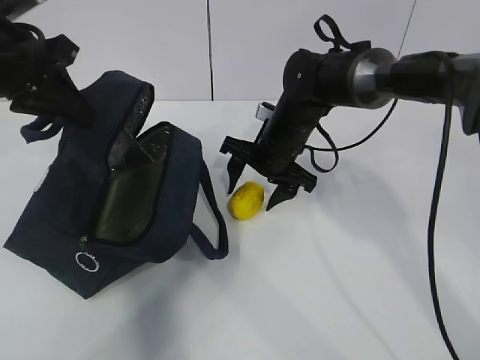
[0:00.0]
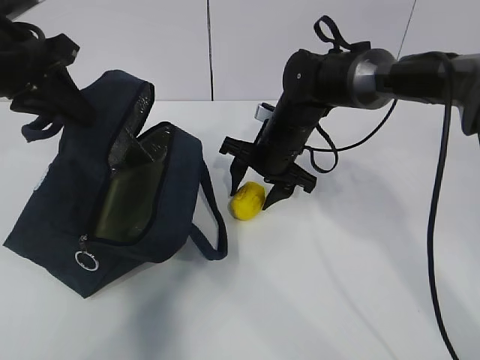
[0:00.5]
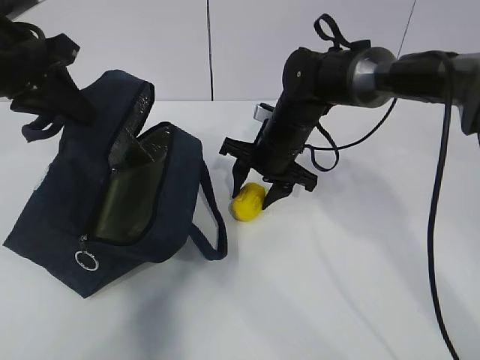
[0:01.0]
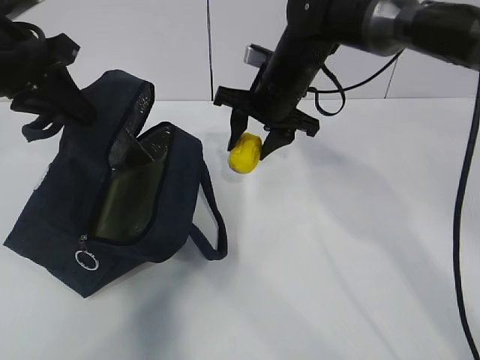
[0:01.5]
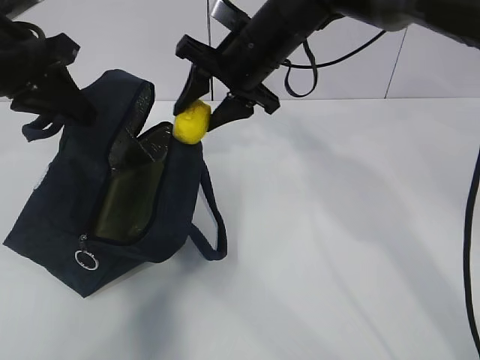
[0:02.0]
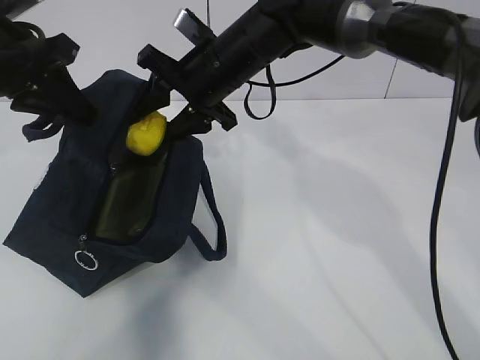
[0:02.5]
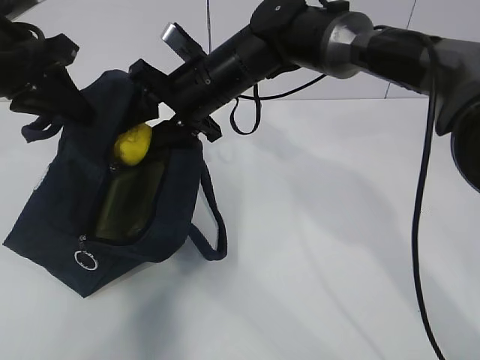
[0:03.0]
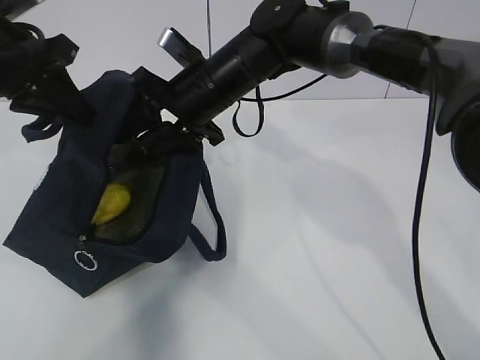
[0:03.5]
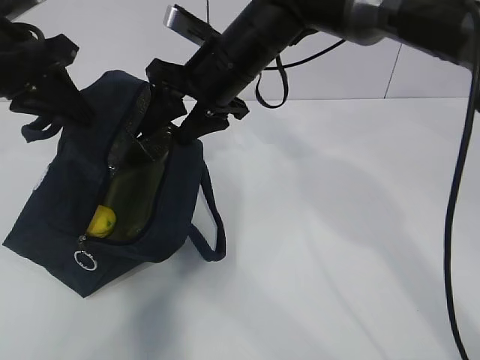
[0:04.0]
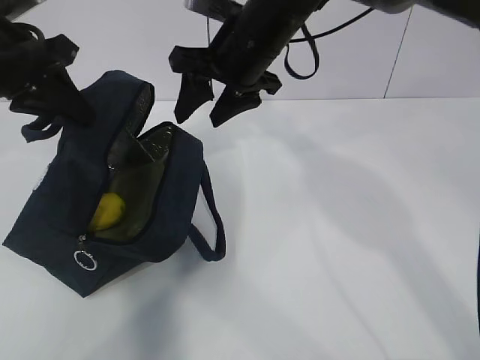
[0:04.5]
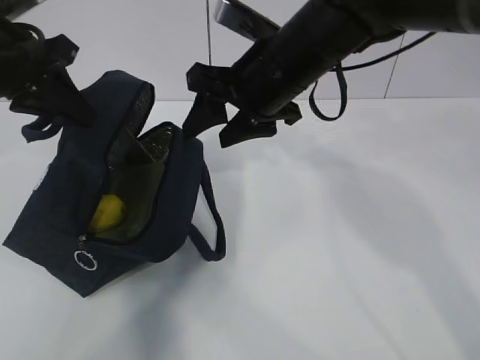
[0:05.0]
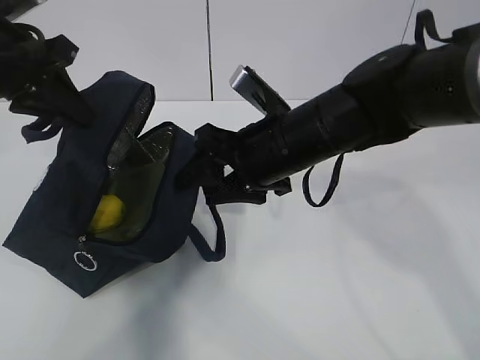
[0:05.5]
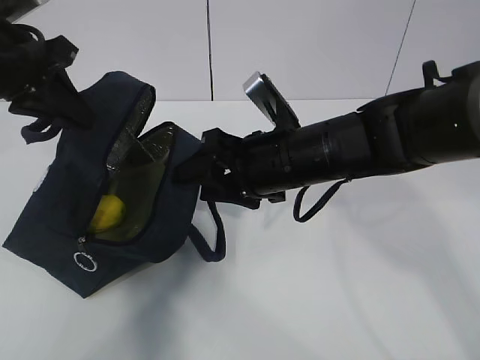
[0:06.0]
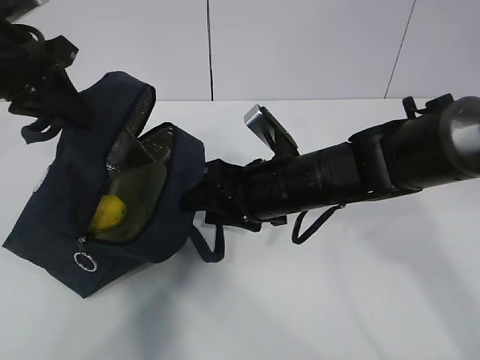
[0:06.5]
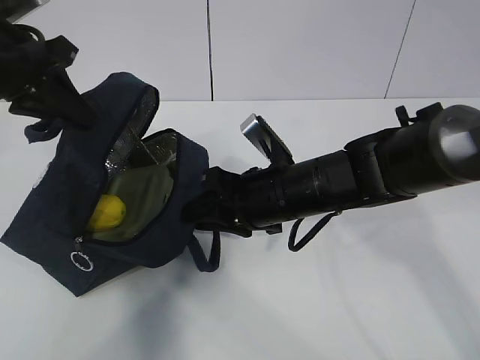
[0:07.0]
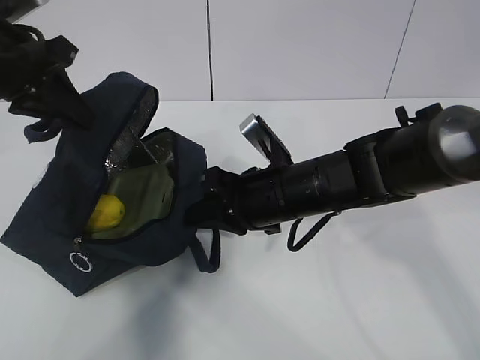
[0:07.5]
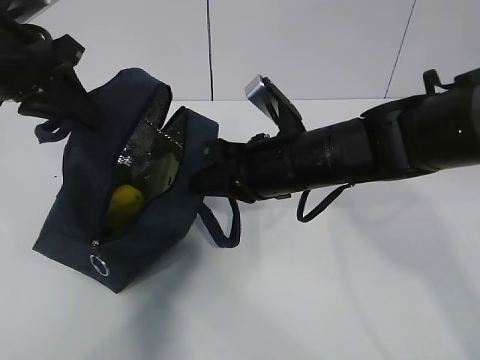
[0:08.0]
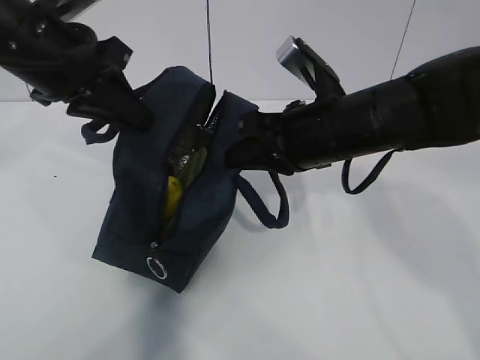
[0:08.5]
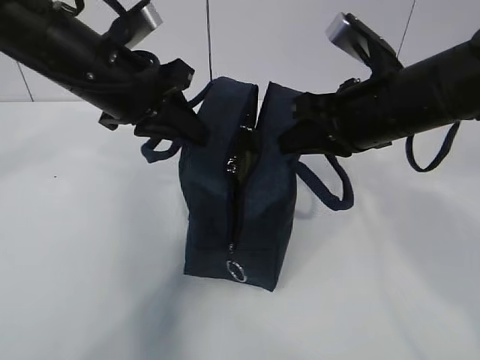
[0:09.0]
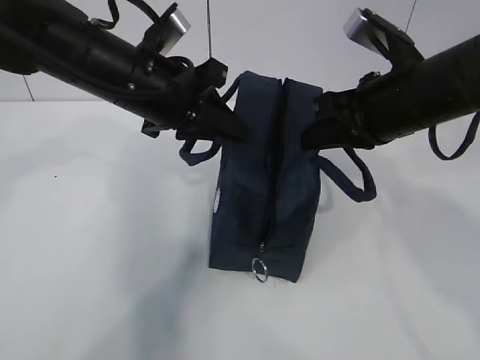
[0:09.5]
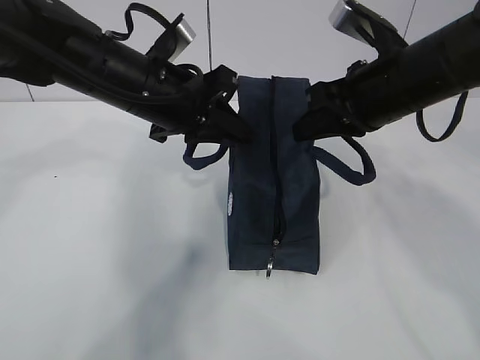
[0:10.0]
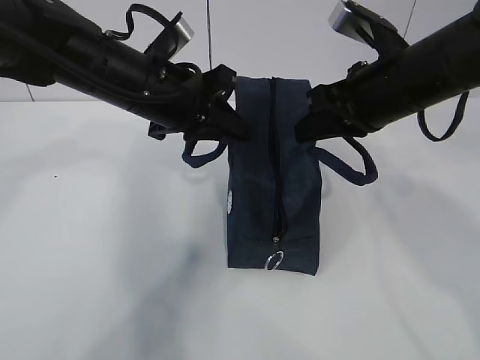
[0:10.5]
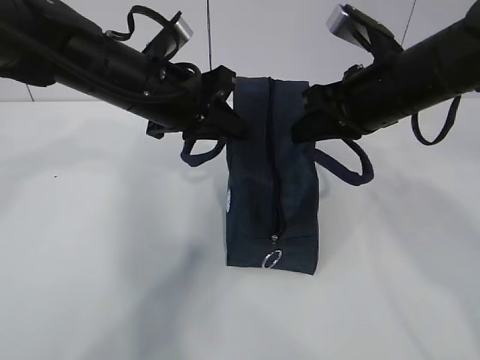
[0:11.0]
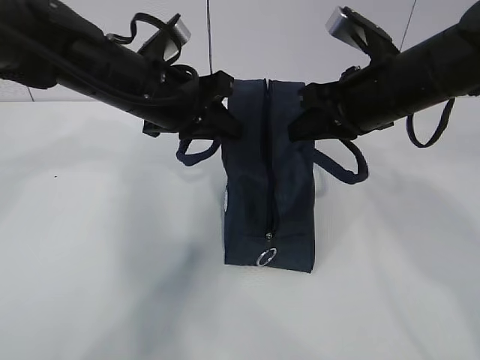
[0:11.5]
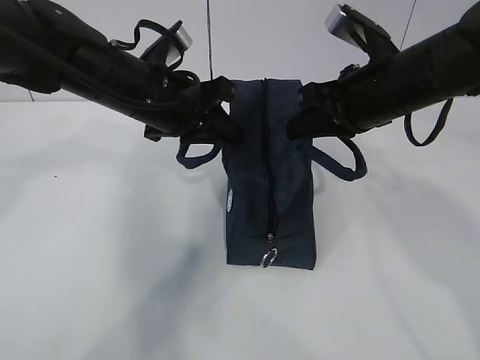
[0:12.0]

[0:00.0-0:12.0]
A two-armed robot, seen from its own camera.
Step, 0:00.0 to 0:03.0: Move the lunch bag to the right.
0:00.0 to 0:02.0: The right gripper moves upward, roughly 15 cm.
0:04.0 to 0:06.0: The right gripper is displaced backward, downward and to the right by some 10 cm.
0:06.0 to 0:08.0: The right gripper closes up.
0:08.0 to 0:10.0: The left gripper is displaced to the right and downward by about 15 cm; the right gripper is displaced to the right and upward by about 15 cm.
0:10.0 to 0:12.0: There are only small adjustments of the grippers.

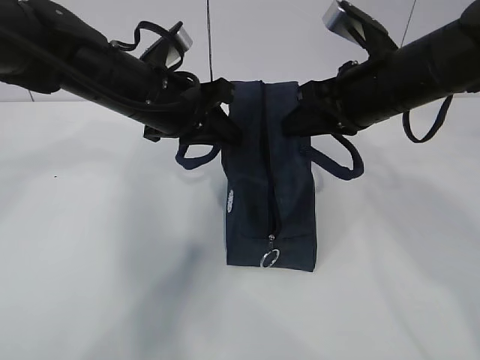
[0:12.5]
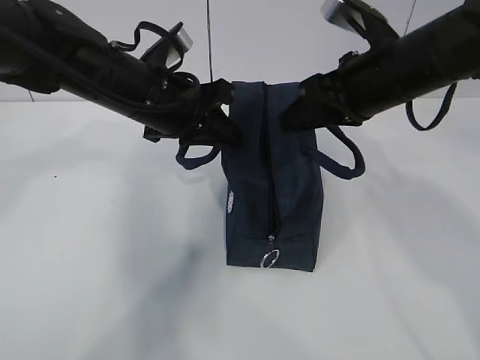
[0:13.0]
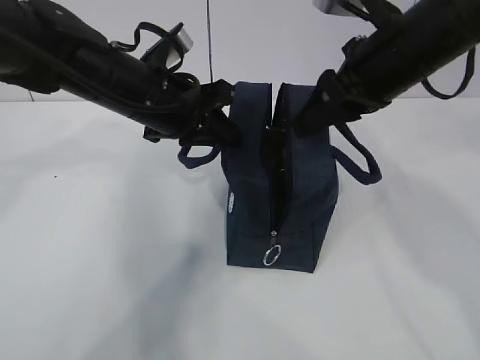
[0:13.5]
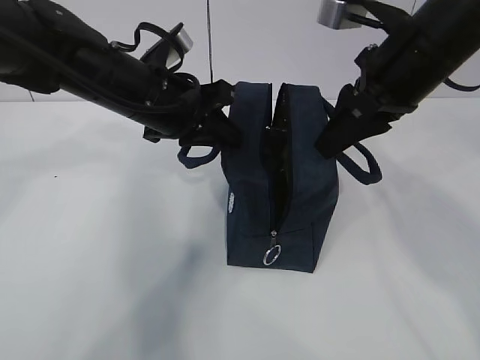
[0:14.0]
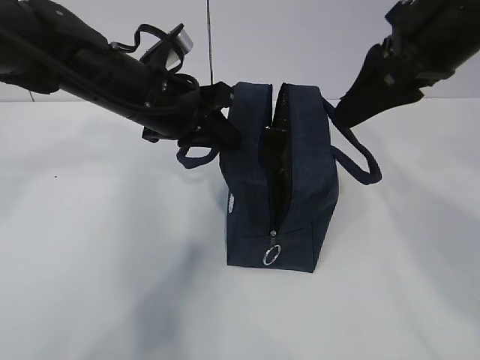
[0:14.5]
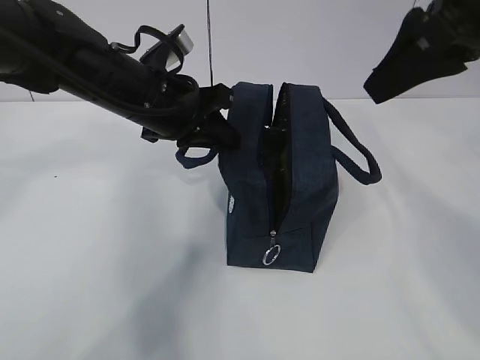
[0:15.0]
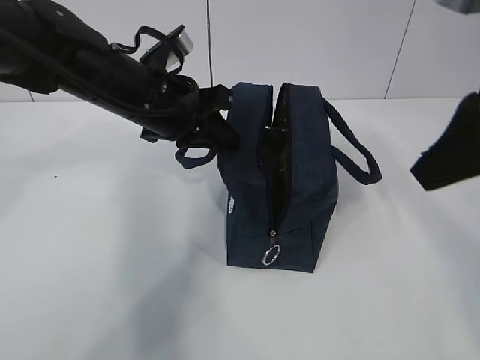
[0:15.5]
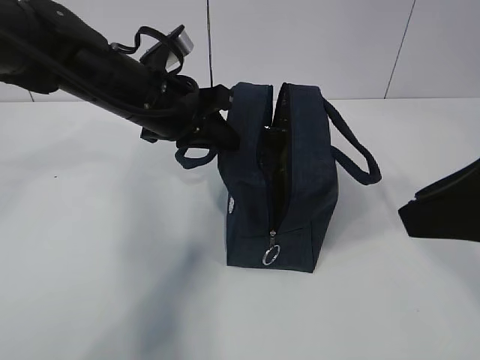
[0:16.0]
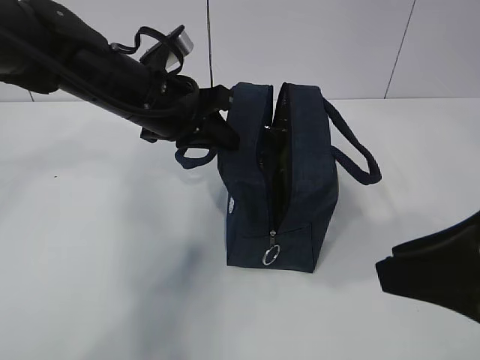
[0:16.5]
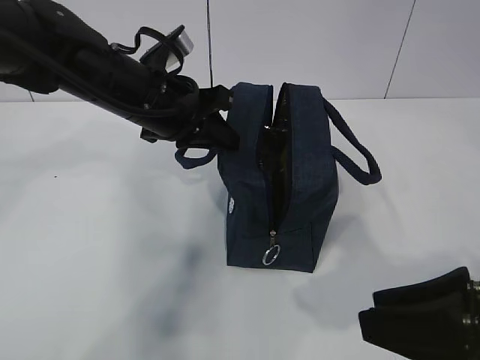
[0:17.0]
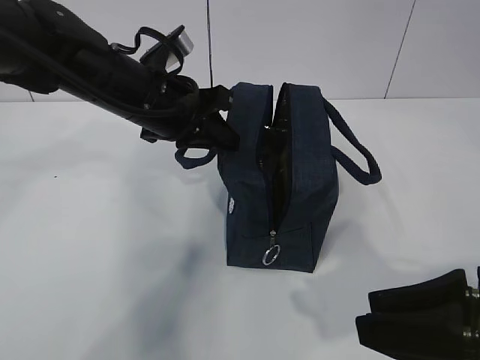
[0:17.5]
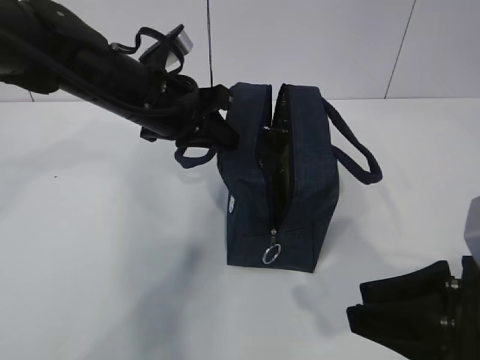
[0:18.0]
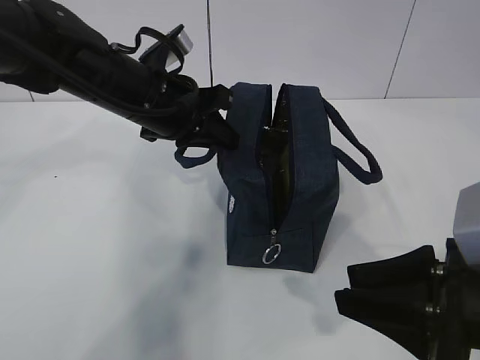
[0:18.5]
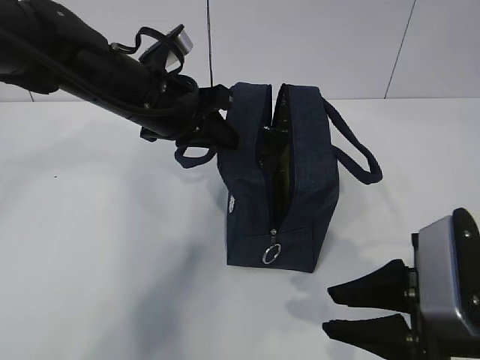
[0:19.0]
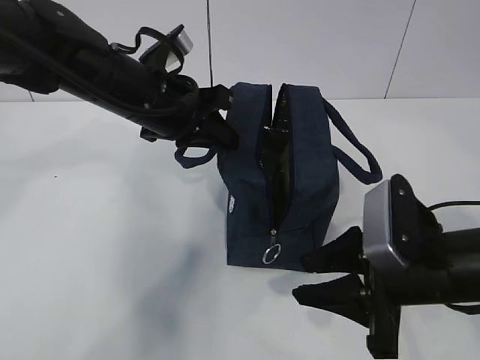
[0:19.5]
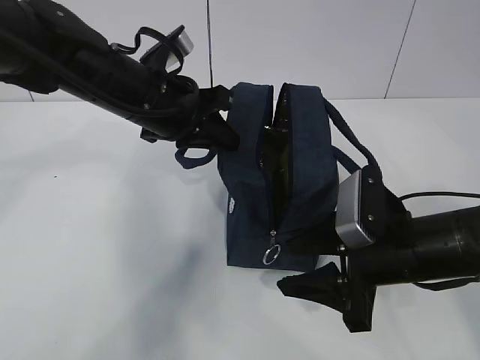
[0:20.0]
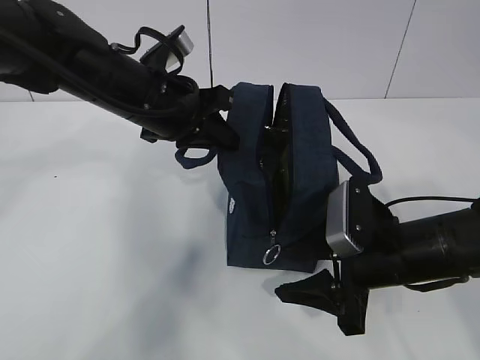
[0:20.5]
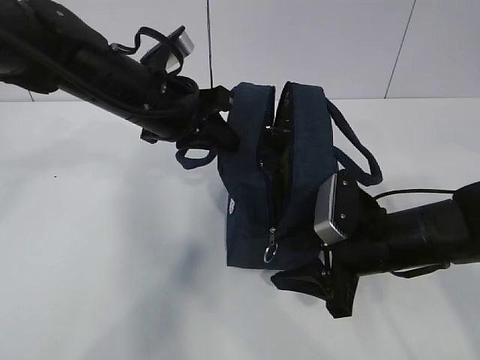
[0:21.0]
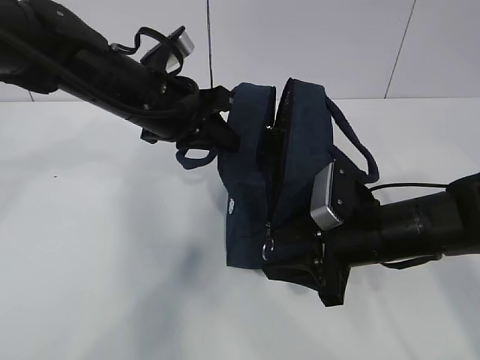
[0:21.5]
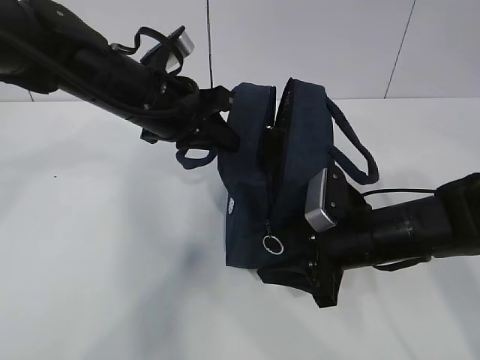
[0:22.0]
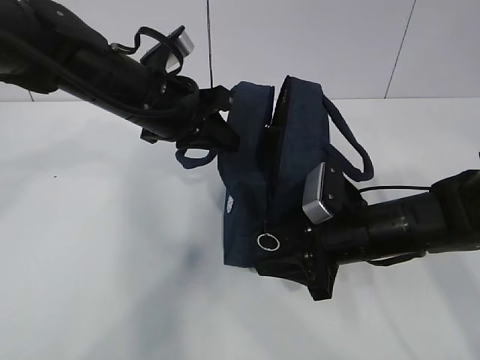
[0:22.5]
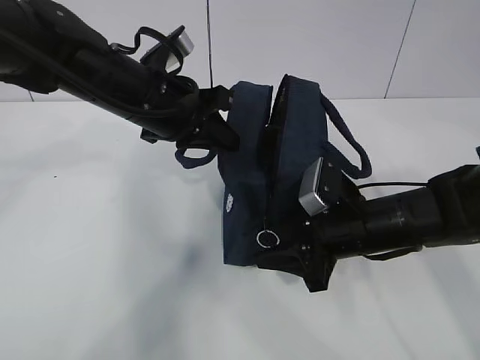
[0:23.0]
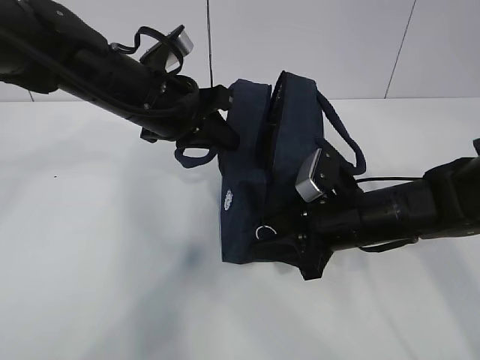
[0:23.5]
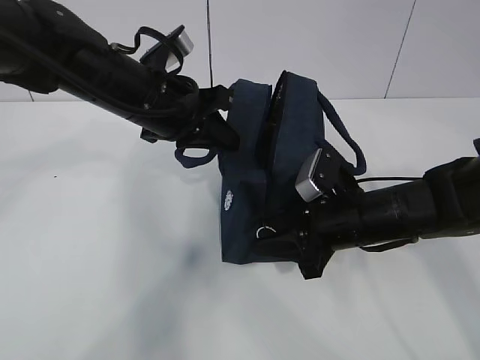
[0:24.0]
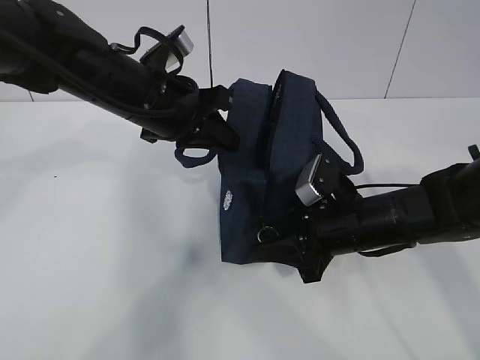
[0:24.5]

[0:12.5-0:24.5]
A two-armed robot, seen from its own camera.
0:12.5 to 0:14.5: The right gripper is displaced upward by some 10 cm.
0:14.5 to 0:16.5: The right gripper shifts approximately 20 cm backward and downward.
0:16.5 to 0:18.5: The right gripper goes some 5 cm downward.
0:18.5 to 0:20.5: The right gripper goes approximately 15 cm forward and downward.
0:20.5 to 0:24.5: There are only small adjustments of the grippers.

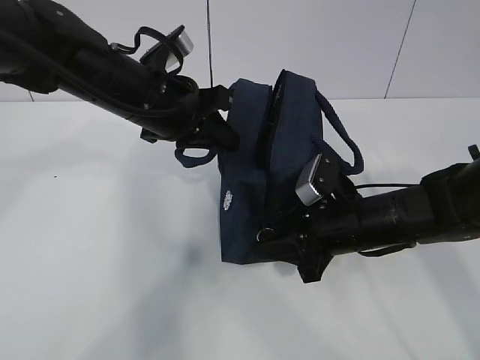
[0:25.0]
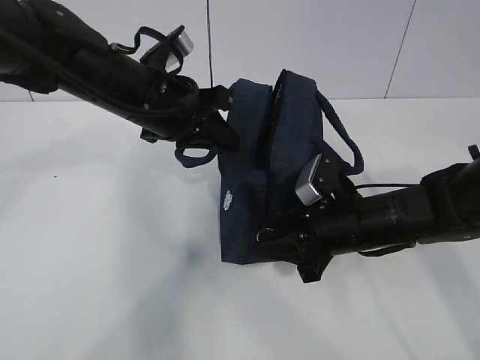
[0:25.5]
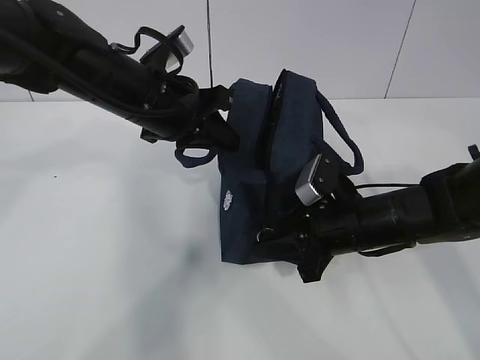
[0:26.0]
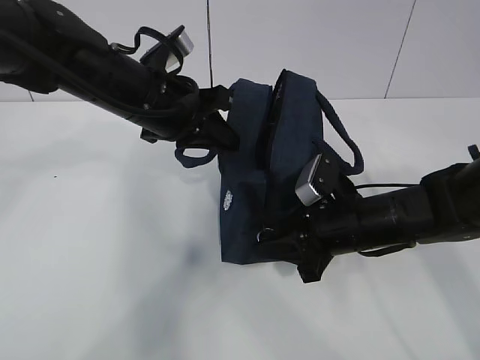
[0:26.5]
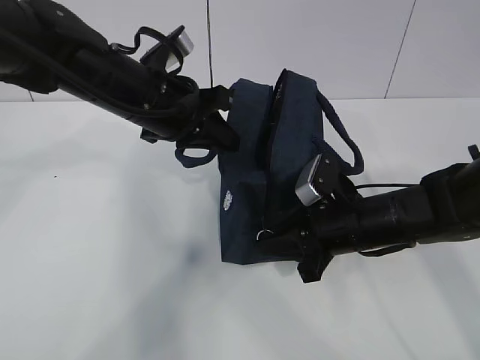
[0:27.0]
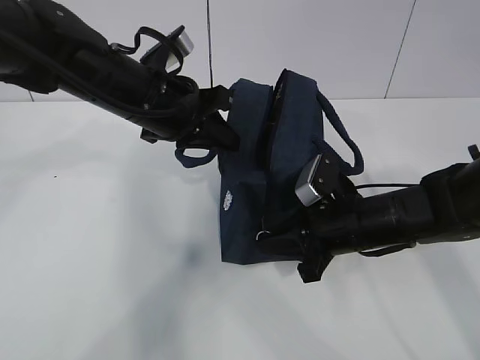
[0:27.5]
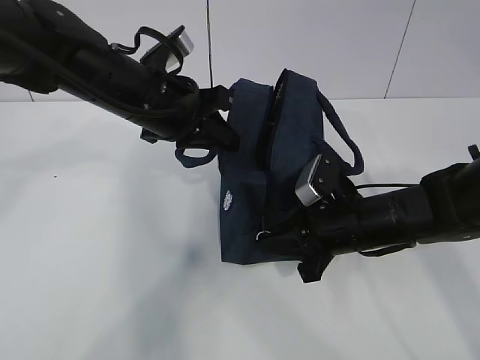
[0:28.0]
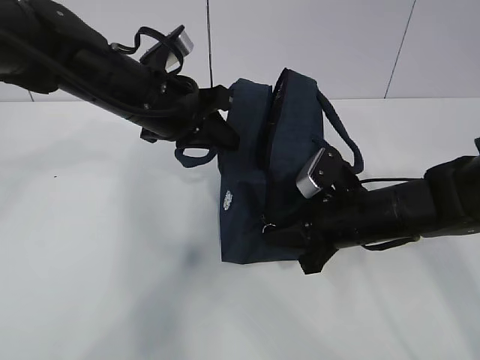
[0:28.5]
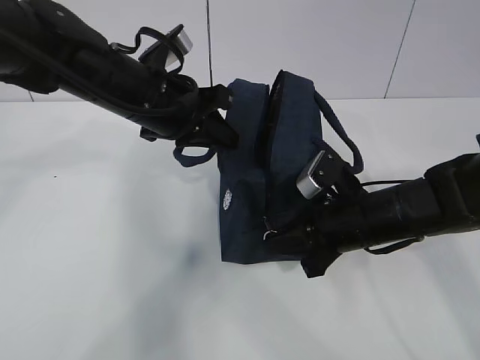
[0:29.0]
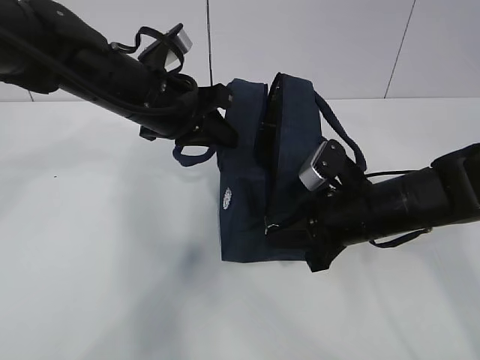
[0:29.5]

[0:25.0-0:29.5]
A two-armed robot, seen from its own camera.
0:25.0 to 0:27.0: Both grippers stay put.
0:27.0 to 0:29.5: There are only small adjustments of the grippers.
